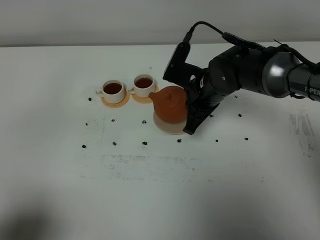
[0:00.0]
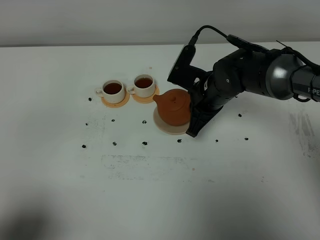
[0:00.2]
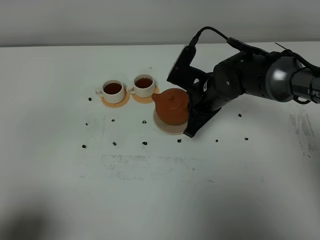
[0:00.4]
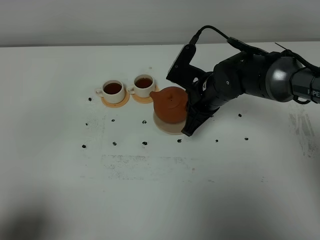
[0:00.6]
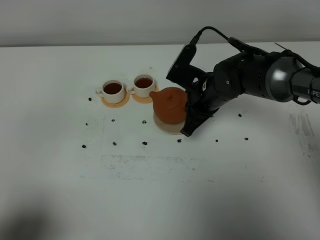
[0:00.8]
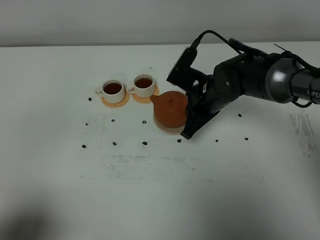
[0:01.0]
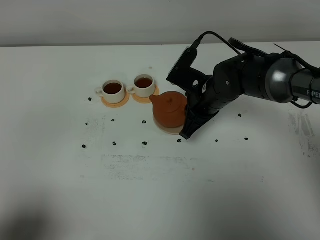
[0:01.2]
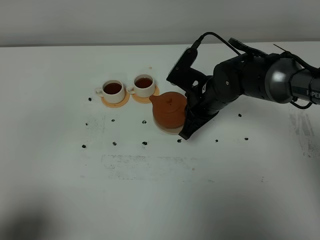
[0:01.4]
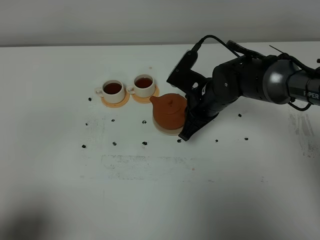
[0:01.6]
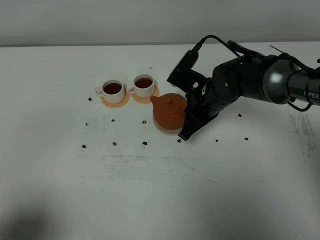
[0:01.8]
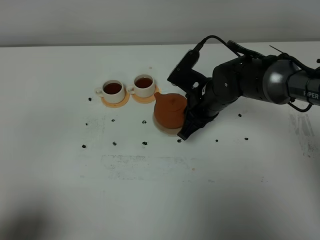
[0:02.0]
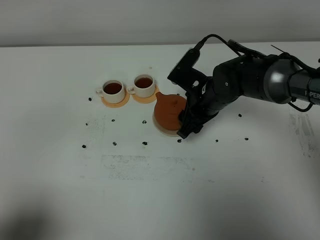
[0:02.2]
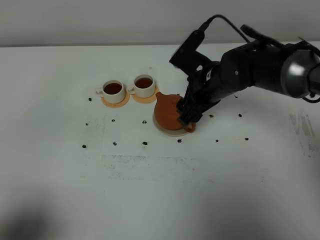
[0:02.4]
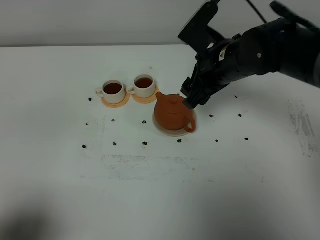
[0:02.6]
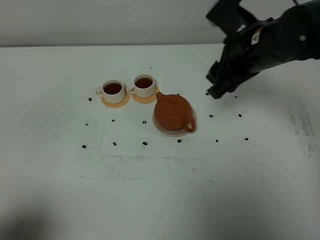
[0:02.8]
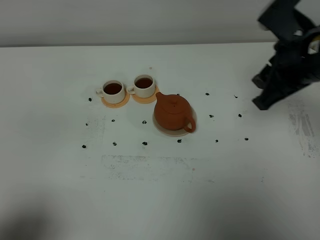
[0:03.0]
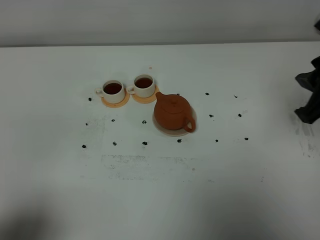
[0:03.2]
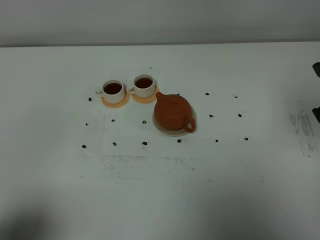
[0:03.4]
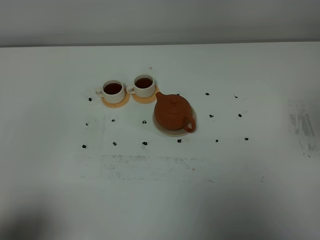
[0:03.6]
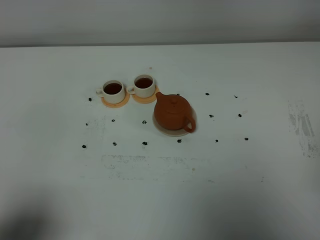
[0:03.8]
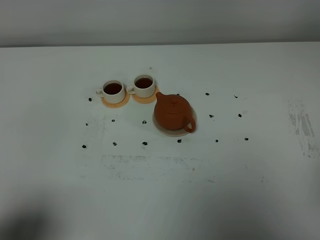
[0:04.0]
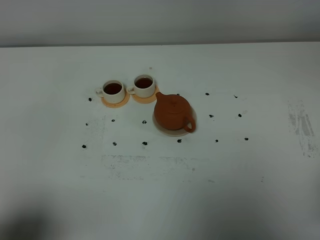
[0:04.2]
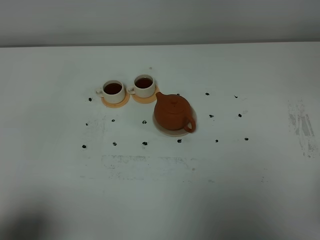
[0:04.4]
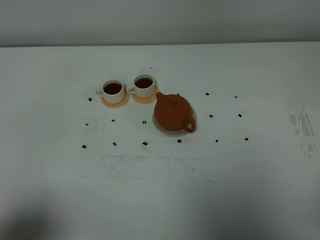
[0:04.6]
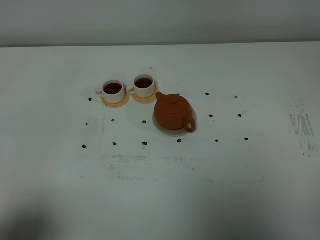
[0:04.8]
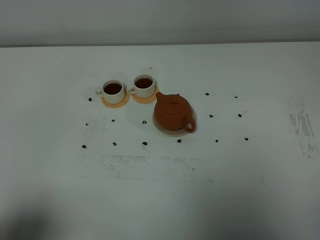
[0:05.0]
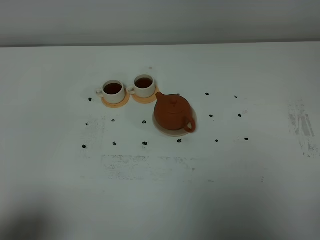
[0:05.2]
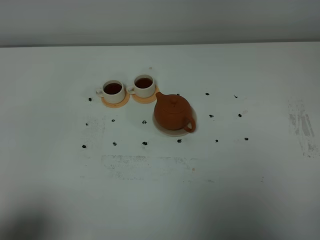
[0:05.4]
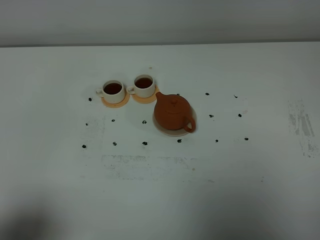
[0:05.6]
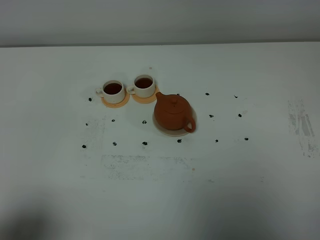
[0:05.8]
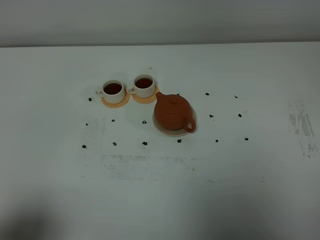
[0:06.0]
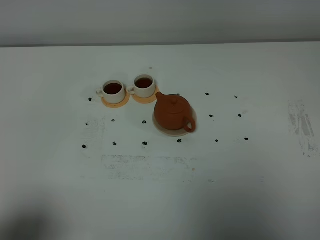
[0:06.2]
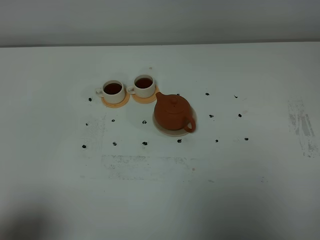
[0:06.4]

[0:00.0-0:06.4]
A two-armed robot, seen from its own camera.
Task of the whole recording: grasp the brown teapot and pour the tea into the two white teacups one by one, put the brown teapot back in its original place.
0:00.0 to 0:01.6: The grippers make only small movements.
0:01.6 to 0:03.2: The right gripper heads upward, to the right and backward, covering some 30 cm, and opens.
0:03.2 to 0:04.8: The right gripper heads backward, covering roughly 20 cm, and closes.

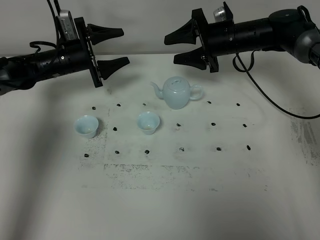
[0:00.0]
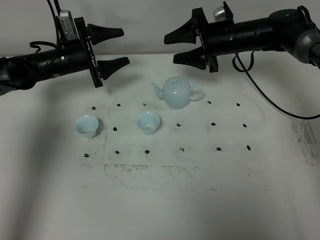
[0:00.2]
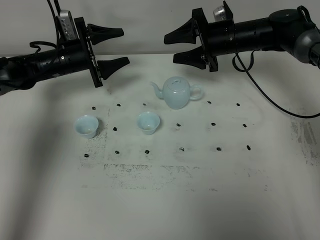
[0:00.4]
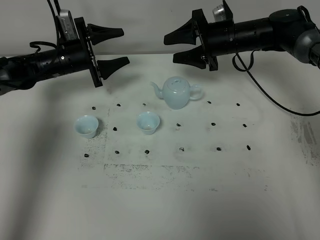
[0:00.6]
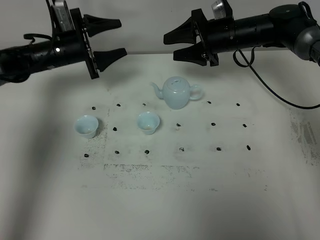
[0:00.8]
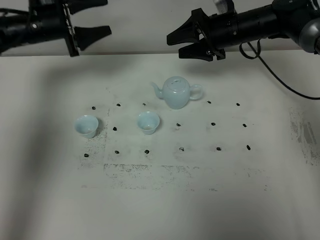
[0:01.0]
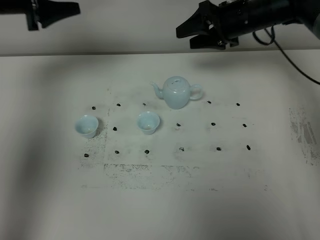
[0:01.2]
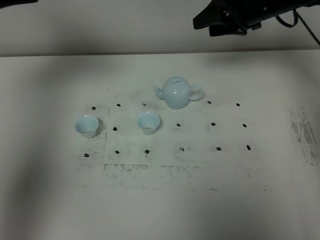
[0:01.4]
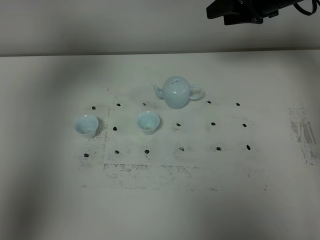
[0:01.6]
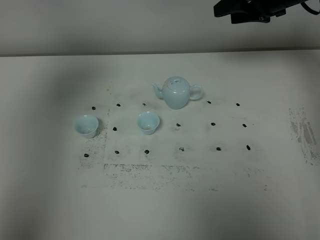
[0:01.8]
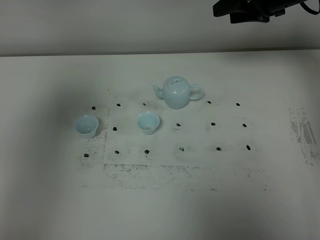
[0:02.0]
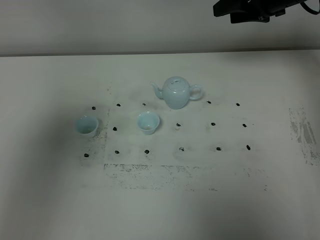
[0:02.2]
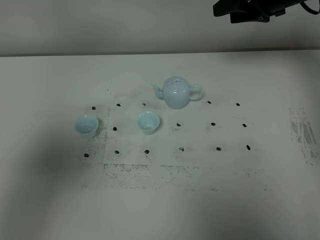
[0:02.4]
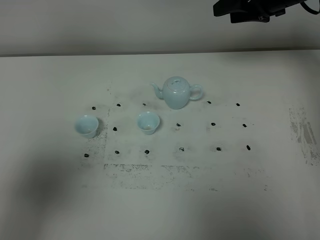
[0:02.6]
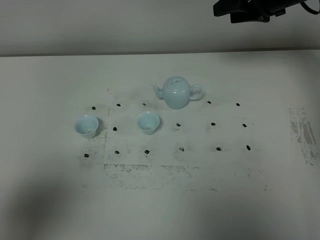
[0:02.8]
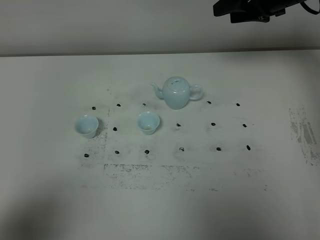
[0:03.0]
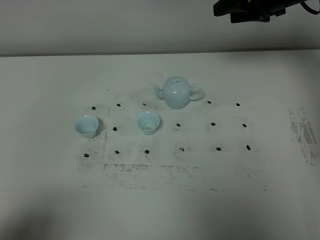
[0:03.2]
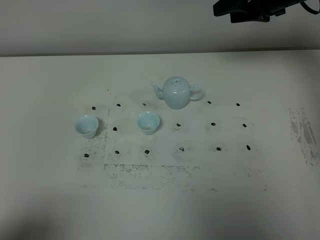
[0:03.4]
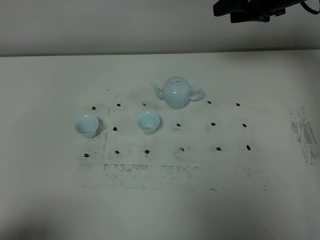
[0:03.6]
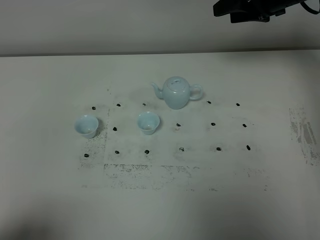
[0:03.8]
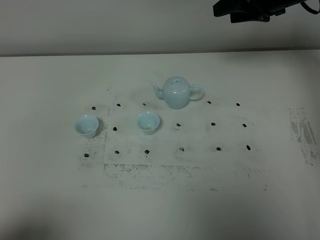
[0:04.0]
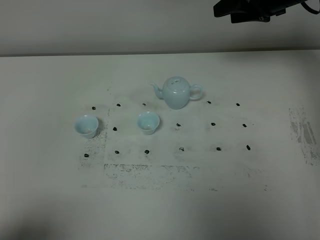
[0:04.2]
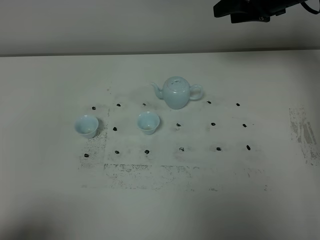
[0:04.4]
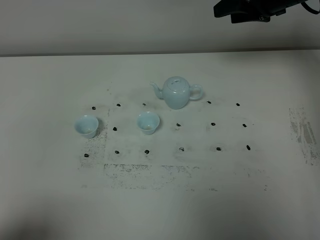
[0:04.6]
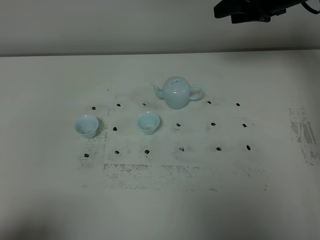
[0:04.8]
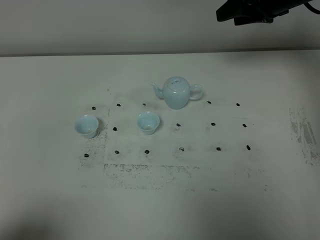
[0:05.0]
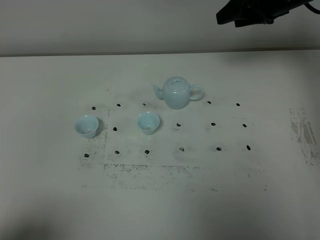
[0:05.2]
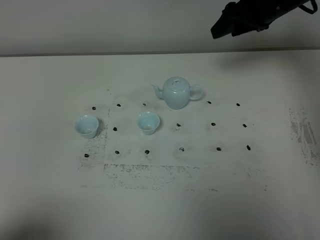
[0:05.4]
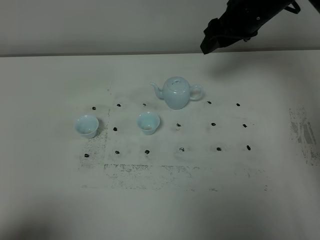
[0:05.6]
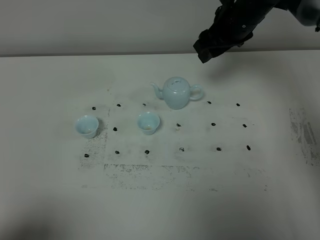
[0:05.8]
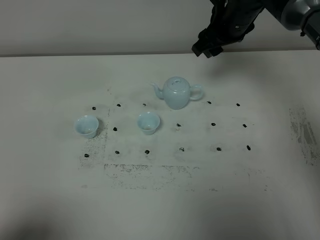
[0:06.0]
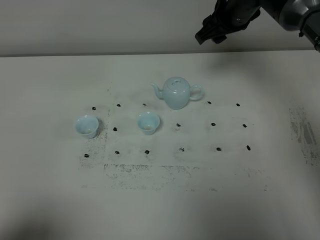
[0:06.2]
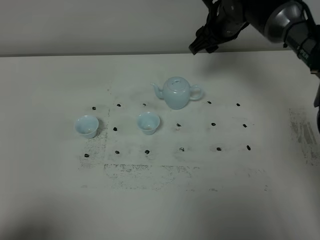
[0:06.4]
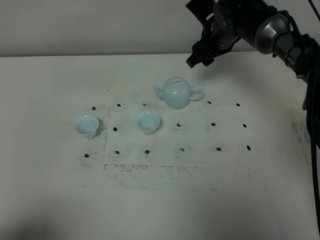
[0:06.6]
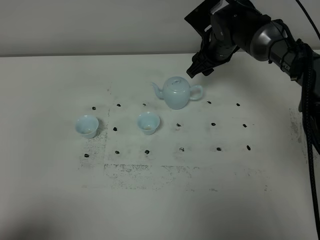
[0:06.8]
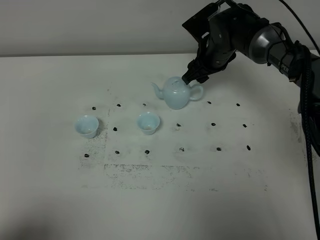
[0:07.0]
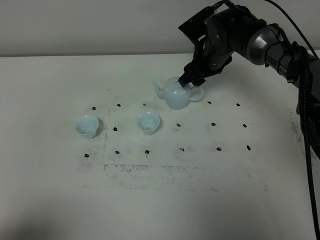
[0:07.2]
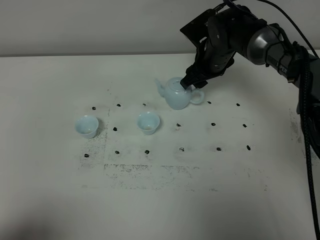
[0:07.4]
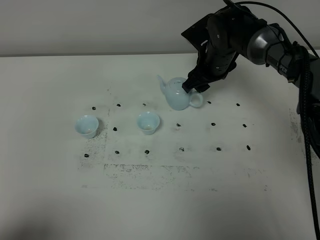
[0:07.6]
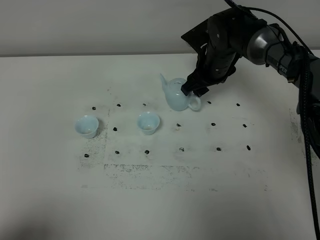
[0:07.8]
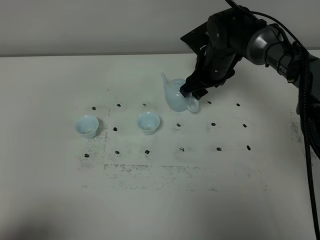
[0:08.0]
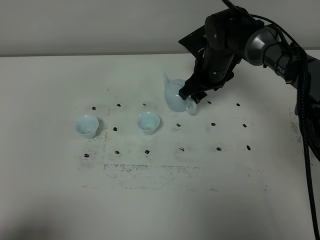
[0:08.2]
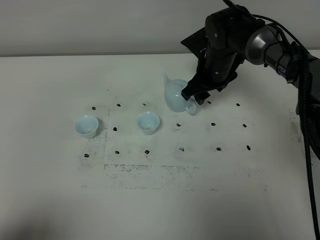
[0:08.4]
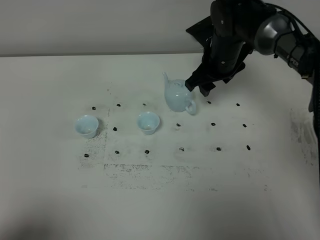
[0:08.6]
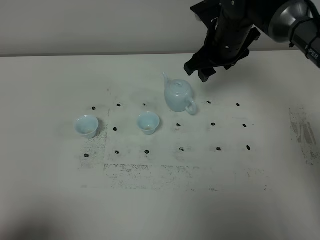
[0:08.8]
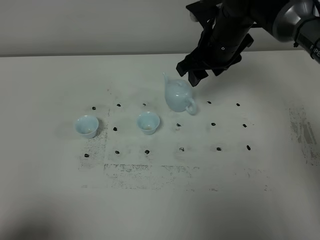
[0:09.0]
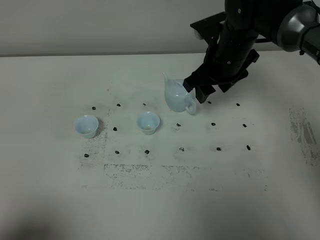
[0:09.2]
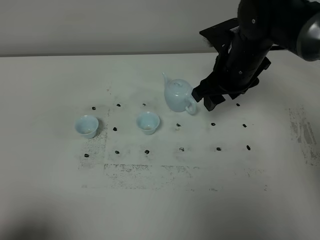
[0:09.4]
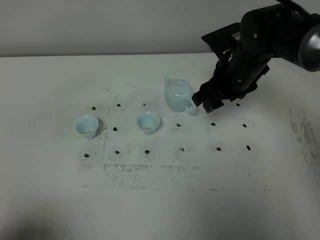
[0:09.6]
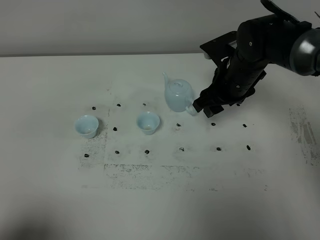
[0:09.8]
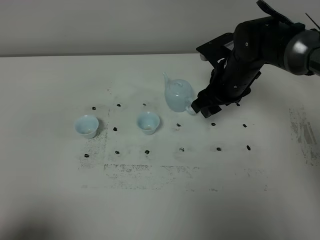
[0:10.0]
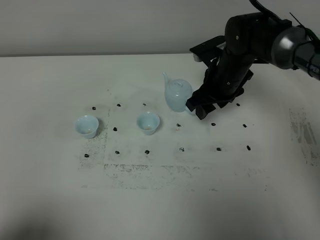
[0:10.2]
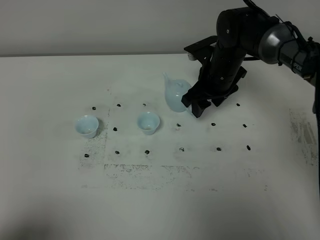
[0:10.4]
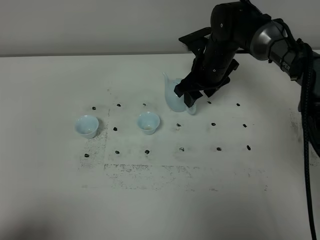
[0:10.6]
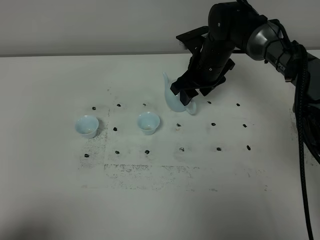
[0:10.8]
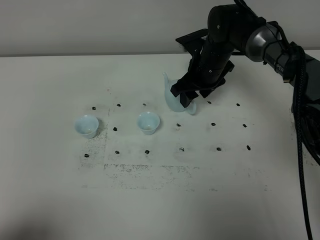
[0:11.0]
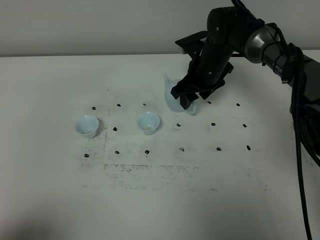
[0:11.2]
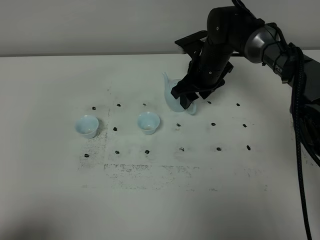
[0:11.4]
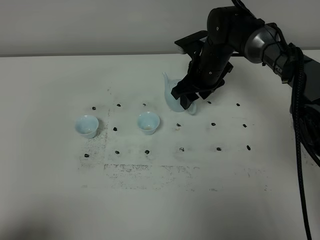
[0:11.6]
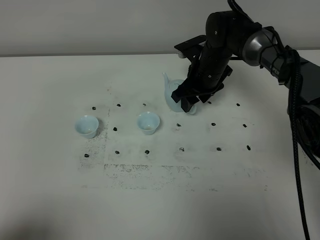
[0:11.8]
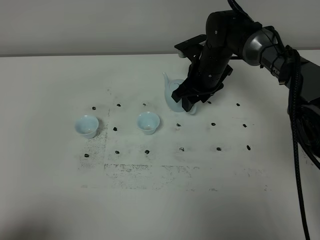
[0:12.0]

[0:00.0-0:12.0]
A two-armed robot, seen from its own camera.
Task of the whole recording: grasp the blue porcelain teapot and pour the tea into the two blue porcelain teacups one by one, put the blue porcelain teapot back in its original place.
0:00.0 to 0:01.6: The right gripper moves upward and to the right, some 15 cm. Meanwhile the left gripper moves upward and backward, approximately 40 cm.
0:01.6 to 0:03.0: The left gripper shifts approximately 35 cm backward and downward.
0:04.4 to 0:06.0: The right gripper goes approximately 10 cm to the left.
0:06.0 to 0:07.6: The right gripper shifts roughly 10 cm downward.
0:07.6 to 0:09.0: The right gripper goes some 10 cm upward.
0:09.0 to 0:10.4: The right gripper shifts about 5 cm downward.
0:10.4 to 0:12.0: There are only small adjustments of the grippers.

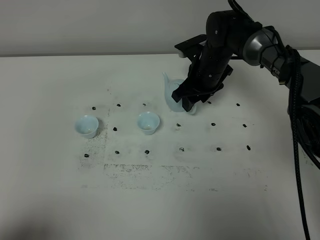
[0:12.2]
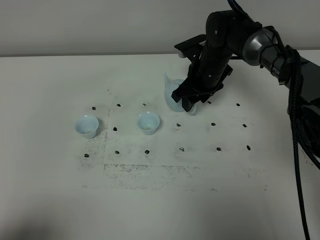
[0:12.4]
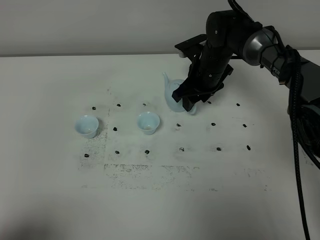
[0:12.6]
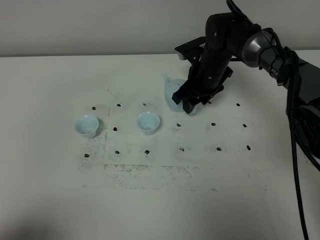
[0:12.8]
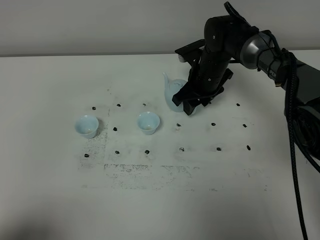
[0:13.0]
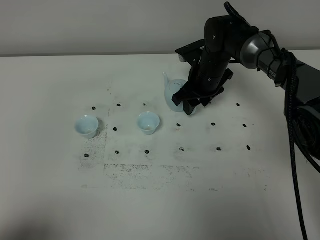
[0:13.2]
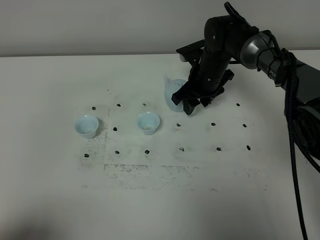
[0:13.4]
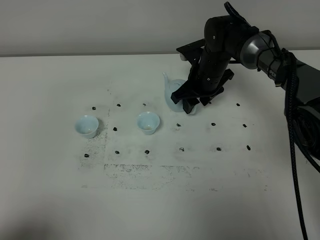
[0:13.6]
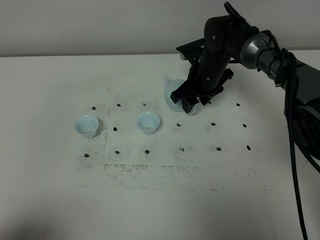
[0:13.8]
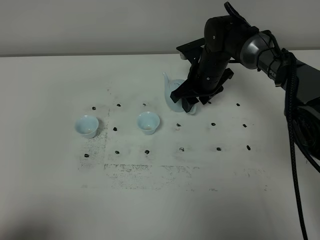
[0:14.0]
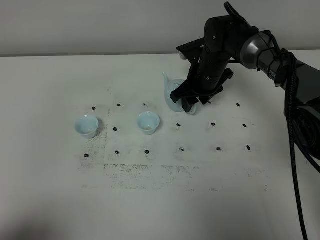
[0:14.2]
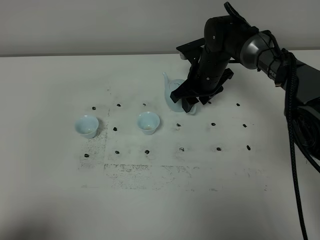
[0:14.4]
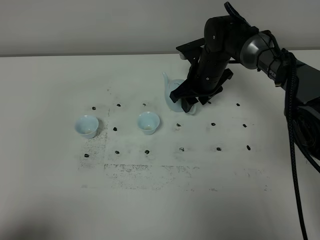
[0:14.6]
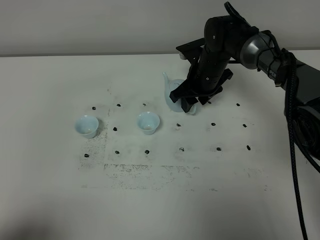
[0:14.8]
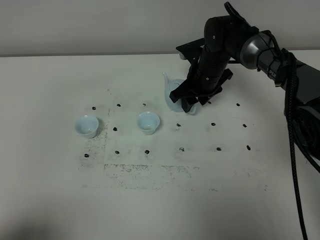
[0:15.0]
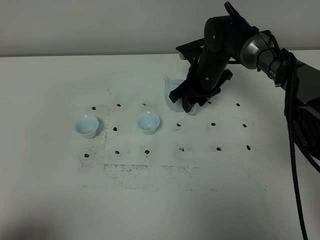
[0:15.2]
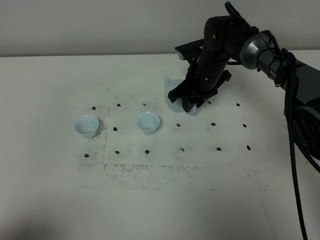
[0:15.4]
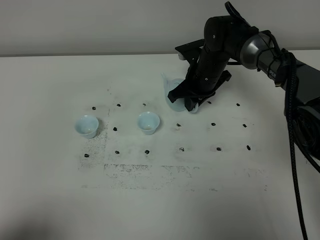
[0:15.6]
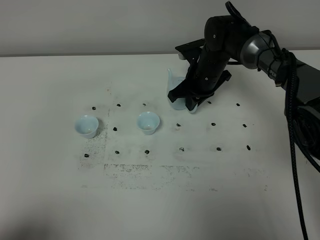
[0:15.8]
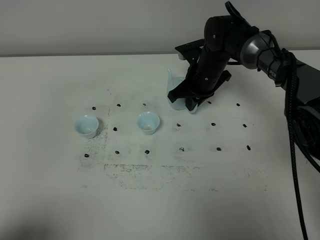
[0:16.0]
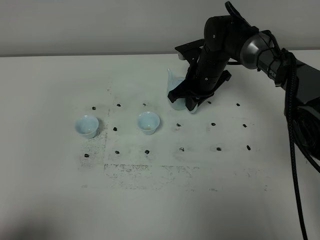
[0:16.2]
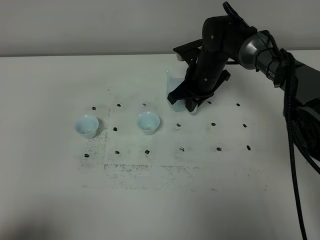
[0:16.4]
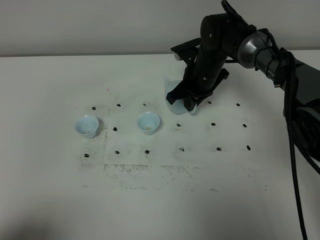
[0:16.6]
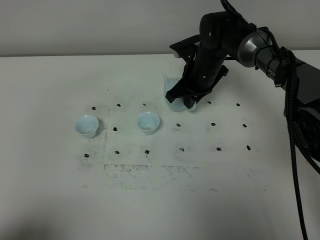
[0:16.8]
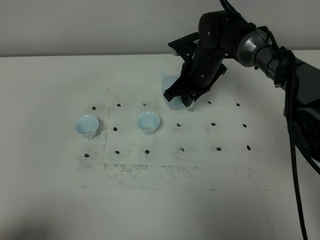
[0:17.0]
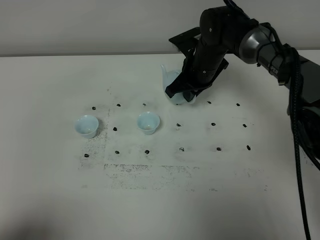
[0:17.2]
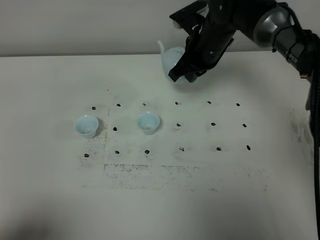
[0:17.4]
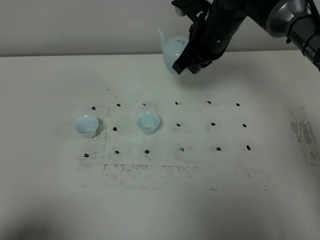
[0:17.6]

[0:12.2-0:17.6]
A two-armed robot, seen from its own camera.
Task of the whole recording: grasp the blue porcelain teapot and pour the tea into the two blue porcelain teacups one by one, put the blue porcelain teapot back in its original place.
Step, 0:12.2 to 0:17.2: Pick up the teapot with the right gripper.
0:12.2 to 0:15.0: Both grippers stay put.
0:15.0 to 0:16.2: The right gripper closes.
0:16.2 to 0:17.6: The right gripper is displaced upward by roughly 10 cm.
